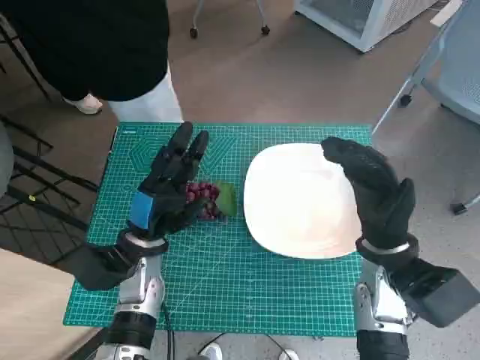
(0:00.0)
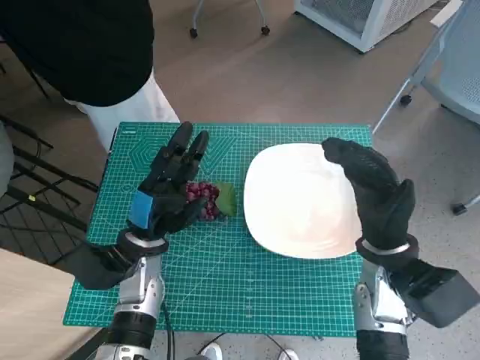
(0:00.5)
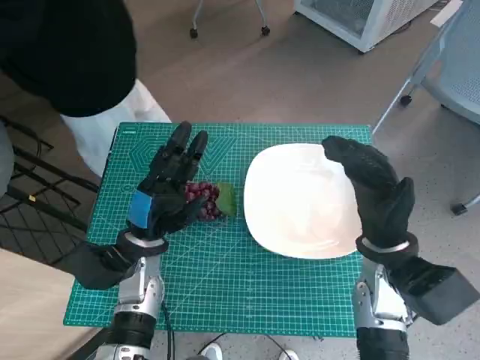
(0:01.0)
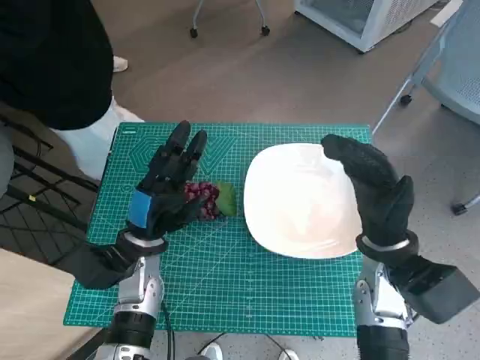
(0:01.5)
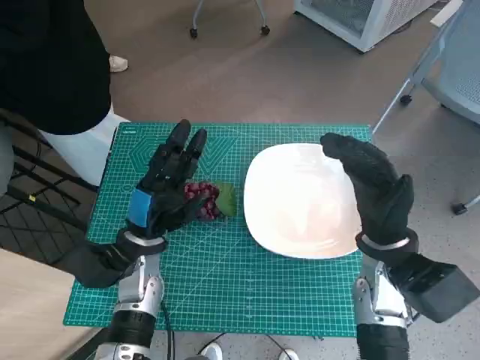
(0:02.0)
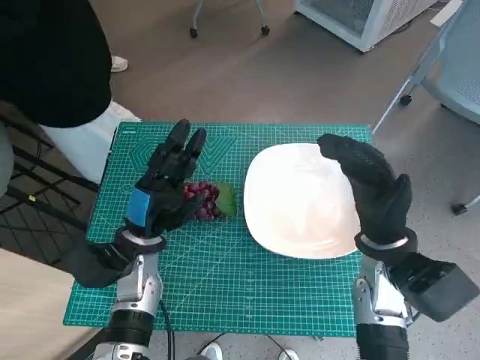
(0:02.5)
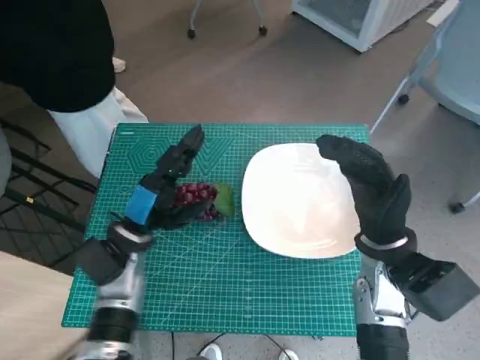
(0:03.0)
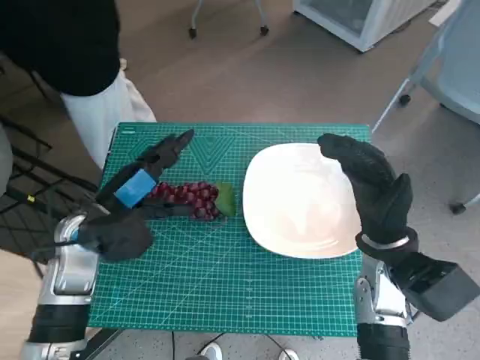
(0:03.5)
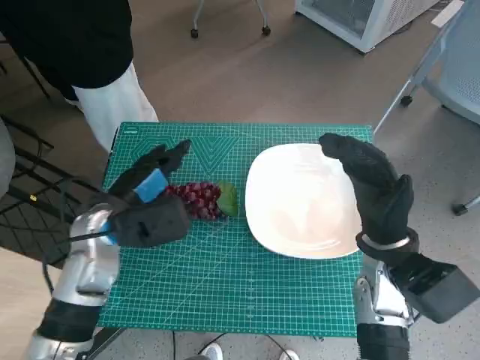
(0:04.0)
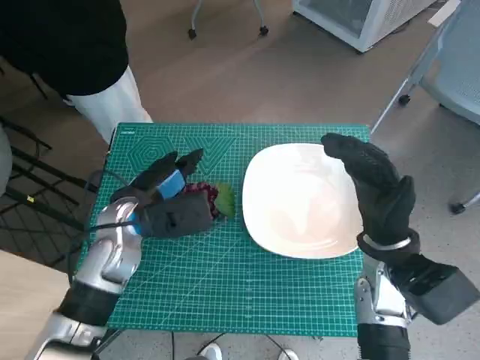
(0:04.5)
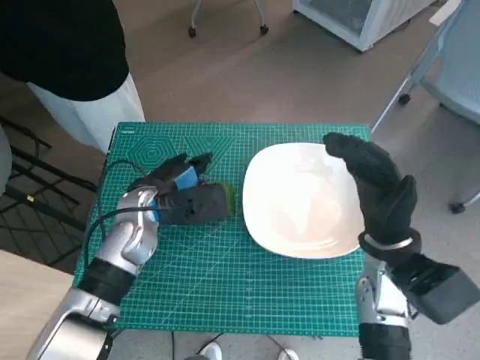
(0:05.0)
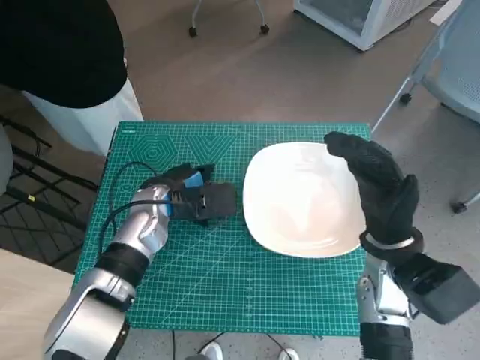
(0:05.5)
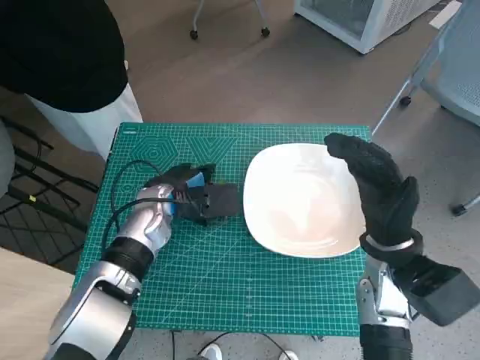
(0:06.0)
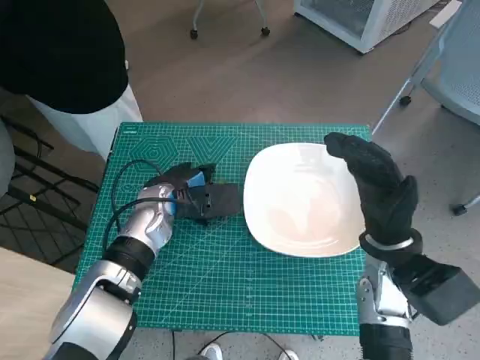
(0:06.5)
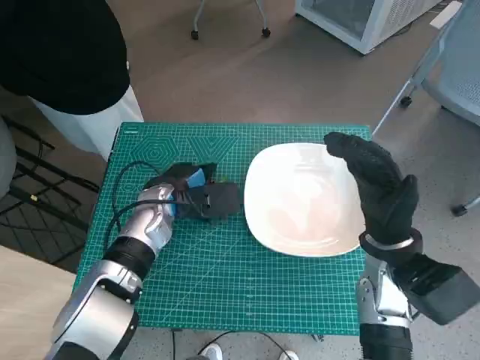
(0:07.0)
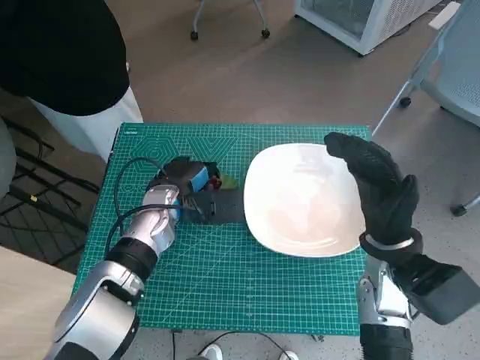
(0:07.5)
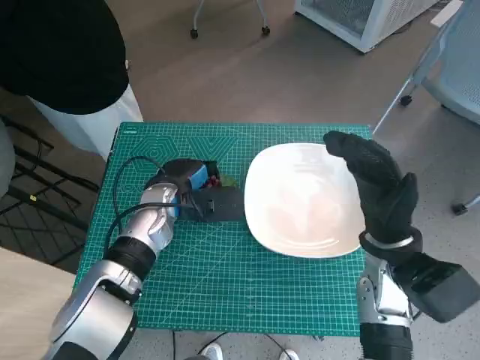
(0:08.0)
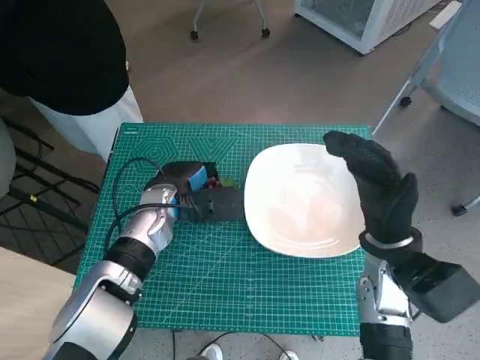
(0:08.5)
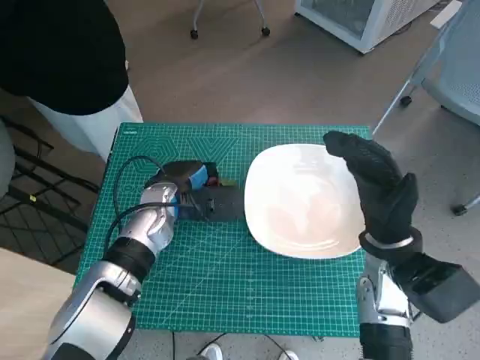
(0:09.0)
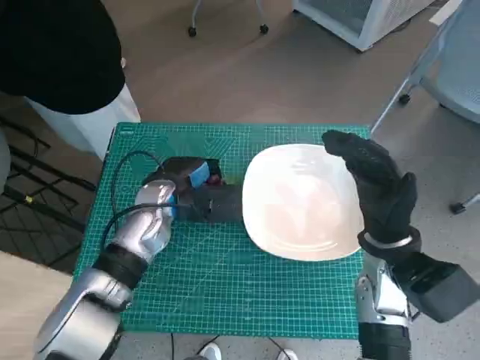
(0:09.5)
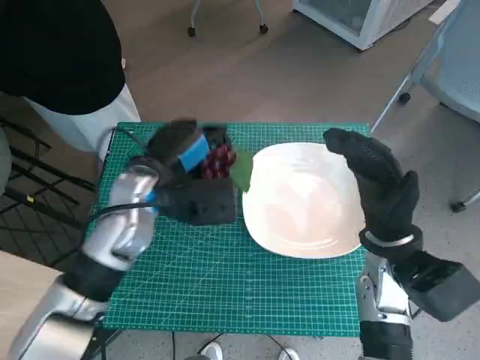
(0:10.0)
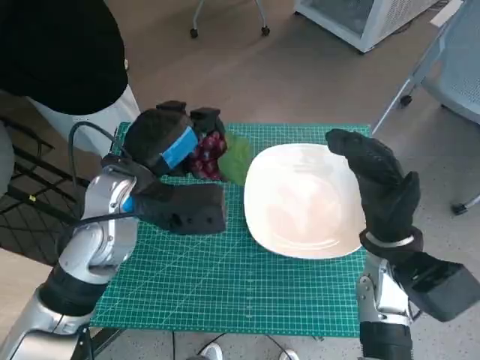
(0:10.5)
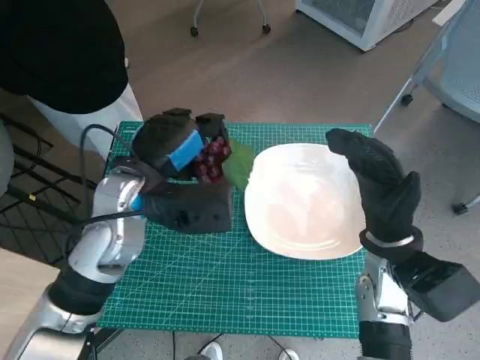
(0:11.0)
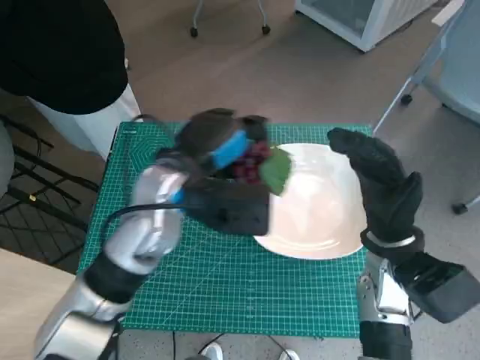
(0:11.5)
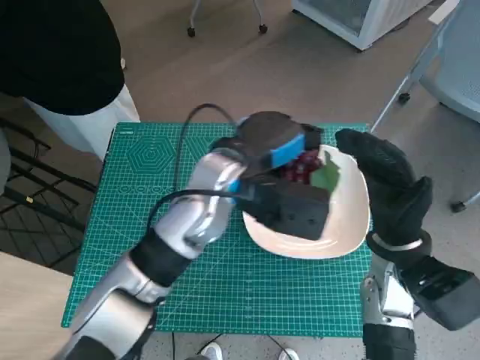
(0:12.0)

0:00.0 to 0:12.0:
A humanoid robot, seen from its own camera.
Task of the whole recording: Pick up the grapes and put them on the plate.
Step, 0:00.0 to 0:07.0: Grasp the grapes with left hand.
0:02.0 to 0:04.0: The left hand goes about 5 cm upward.
0:04.0 to 0:06.0: The left hand is displaced forward and to the right by roughly 10 cm.
0:06.0 to 0:08.0: The hands stay close to where they were, moving slightly.
0:08.0 to 0:10.0: The left hand shifts some 10 cm upward.
0:10.0 to 0:12.0: The left hand heads to the right, covering about 10 cm.

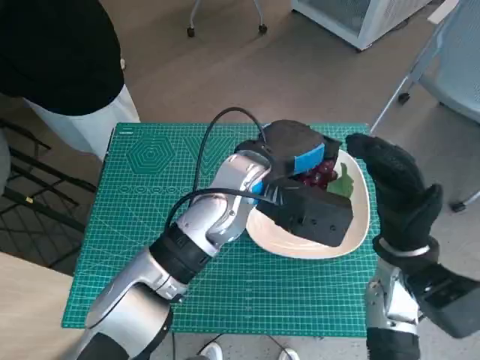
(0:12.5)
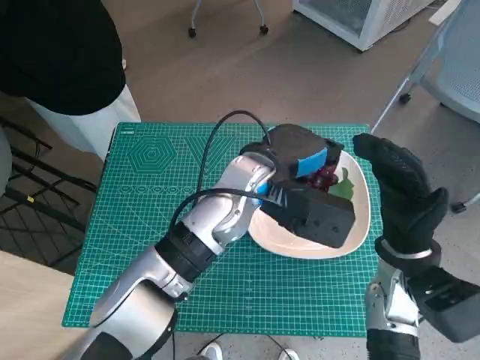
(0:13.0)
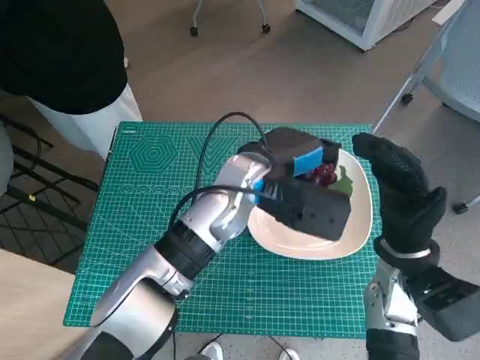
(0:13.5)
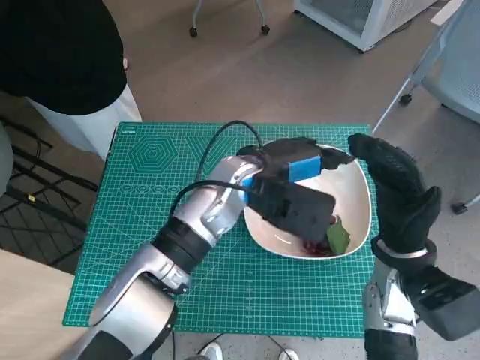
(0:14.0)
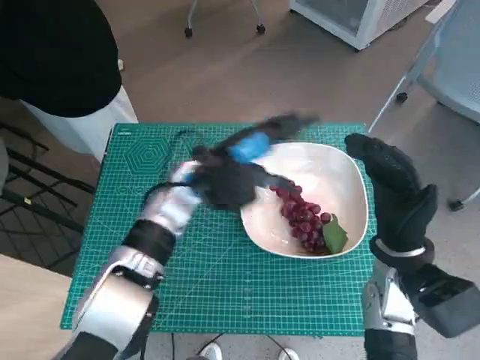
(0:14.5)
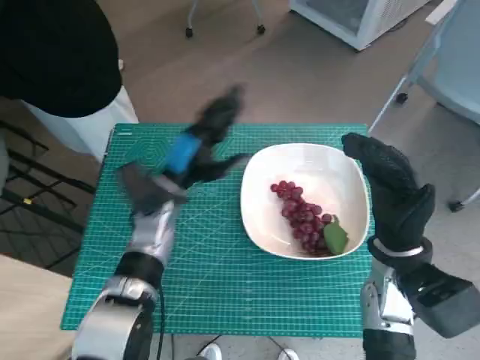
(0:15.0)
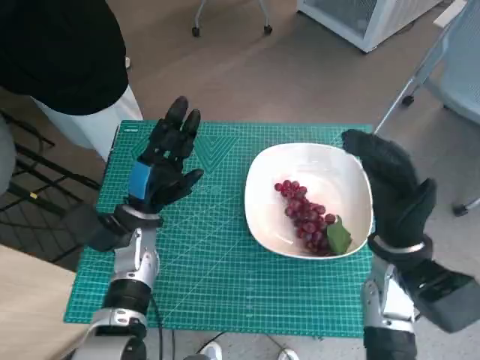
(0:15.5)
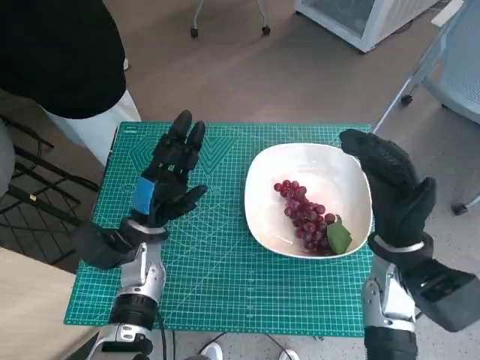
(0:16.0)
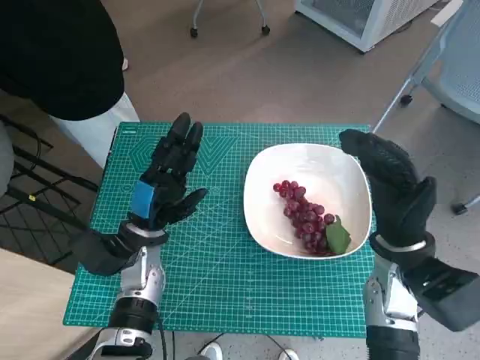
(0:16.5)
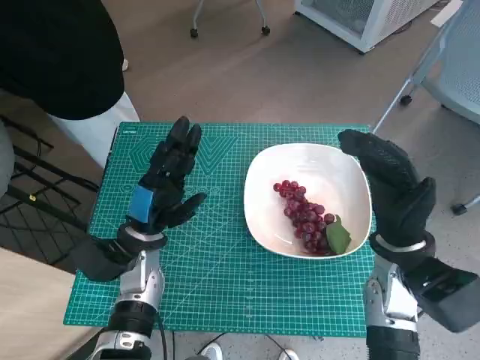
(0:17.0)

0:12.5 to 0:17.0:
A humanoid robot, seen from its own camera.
Task of the whole recording: Pick up the grapes and put them on the plate.
0:12.5 to 0:14.5: The left hand ends up approximately 5 cm from where it was.
0:14.5 to 0:17.0: The left hand goes roughly 15 cm to the left, downward and backward.
